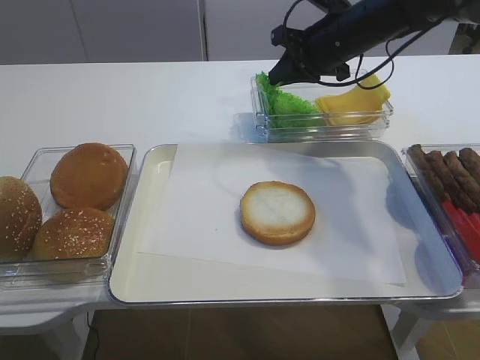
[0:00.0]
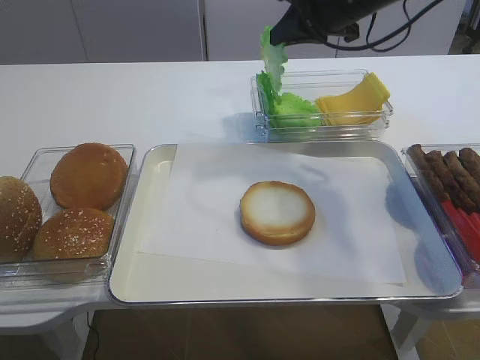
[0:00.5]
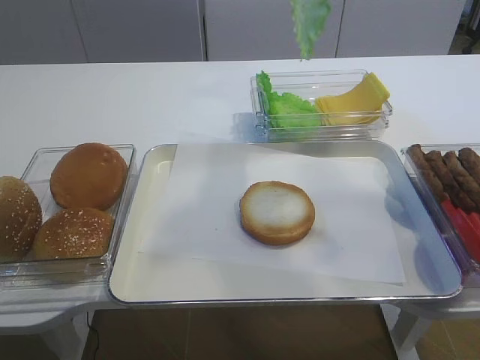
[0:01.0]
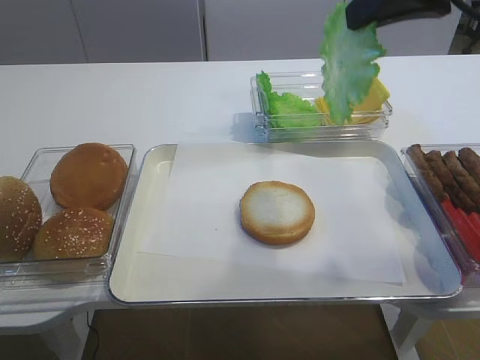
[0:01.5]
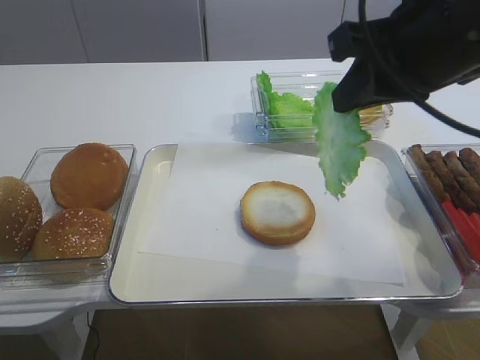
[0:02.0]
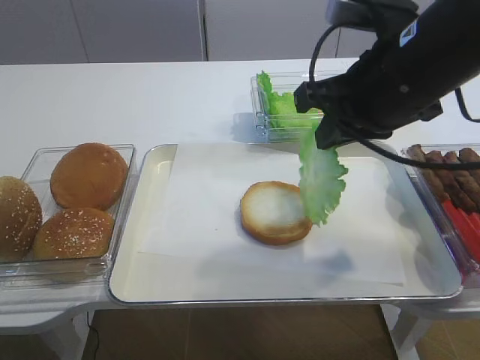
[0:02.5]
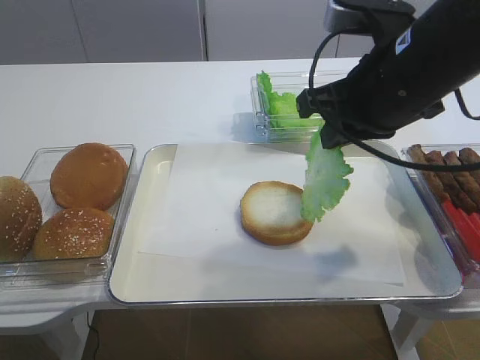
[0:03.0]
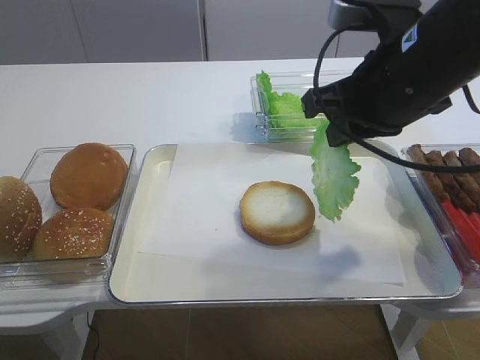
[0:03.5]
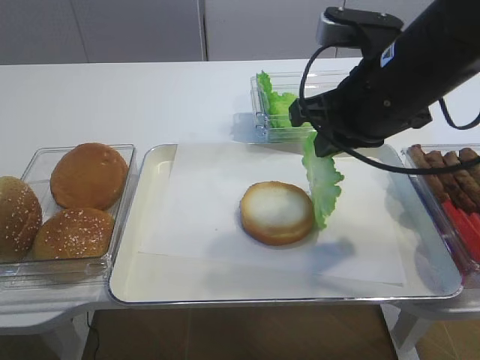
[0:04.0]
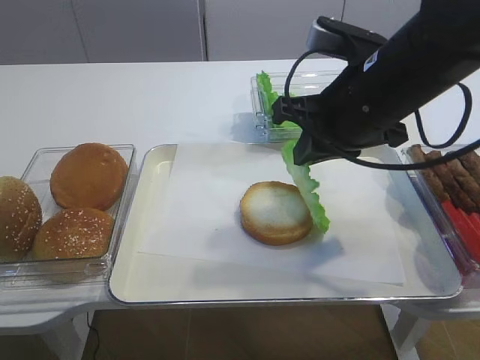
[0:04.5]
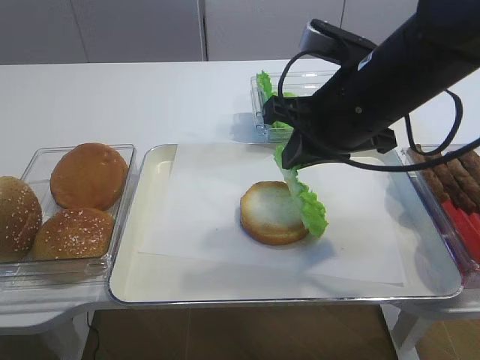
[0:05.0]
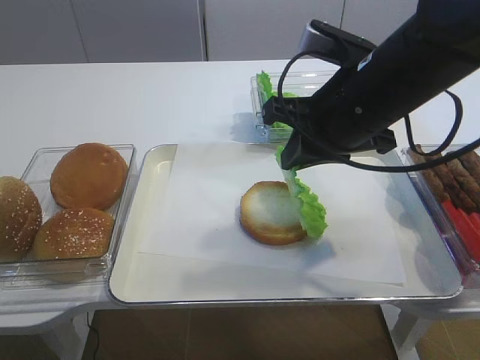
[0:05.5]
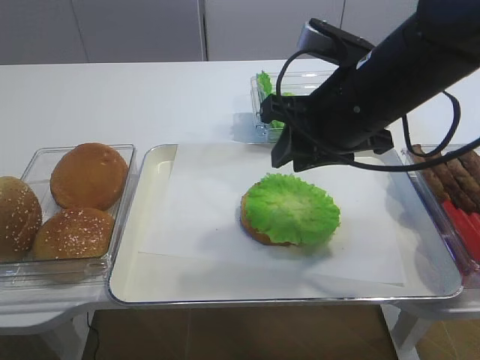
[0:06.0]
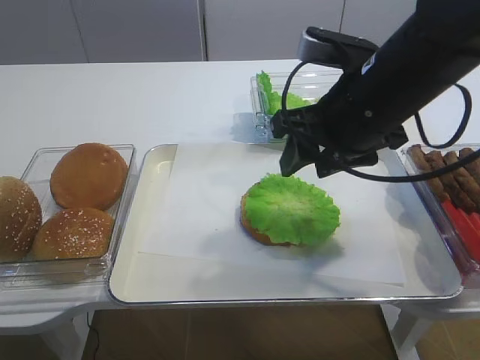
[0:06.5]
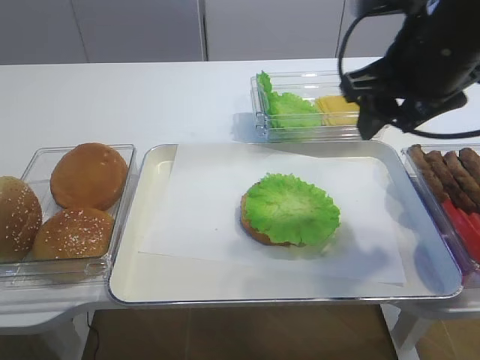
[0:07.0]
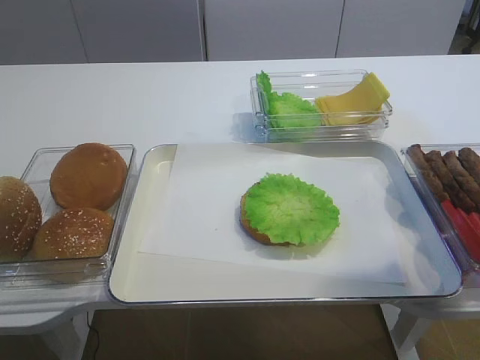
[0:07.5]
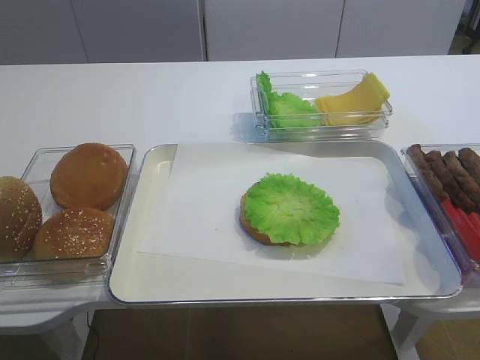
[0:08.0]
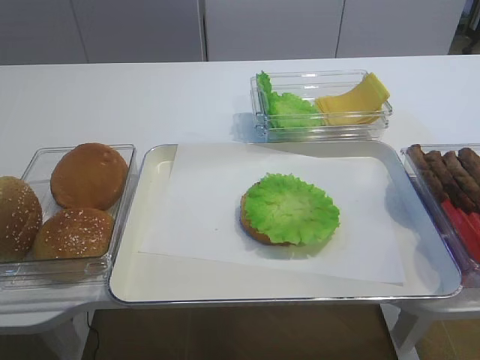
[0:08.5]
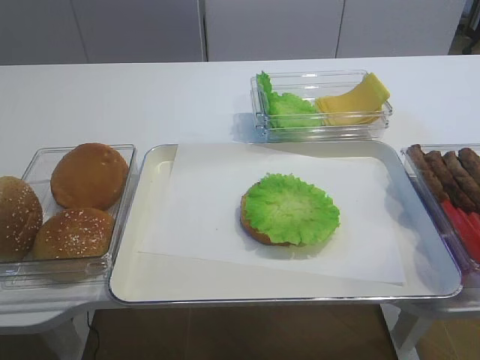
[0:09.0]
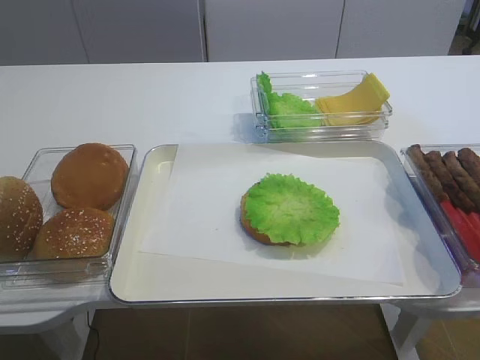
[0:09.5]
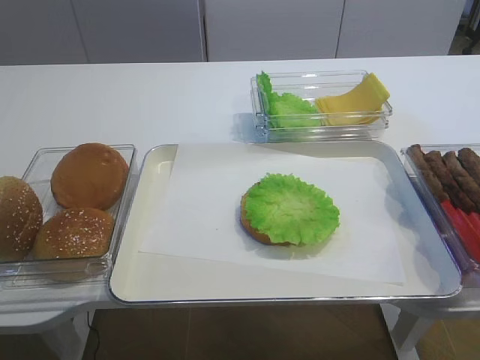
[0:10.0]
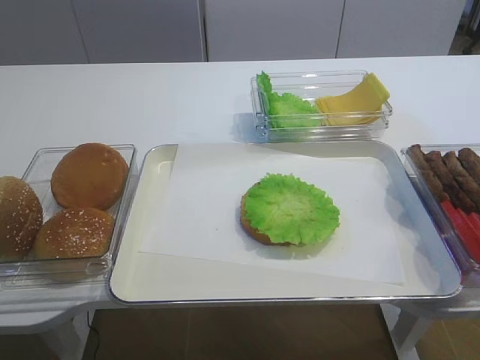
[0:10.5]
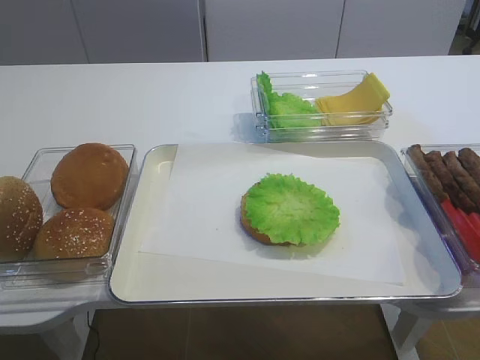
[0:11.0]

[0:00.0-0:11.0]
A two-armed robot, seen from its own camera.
Step, 0:01.5 to 0:06.0: Place the lettuce leaf on the bread slice with the right gripper.
0:00.0 to 0:02.0: The right gripper shifts roughly 25 cm backward and upward.
0:02.0 to 0:03.5: The right gripper ends up roughly 5 cm from where it was.
0:03.5 to 0:05.5: There are only small adjustments of the grippers.
0:05.5 to 0:07.5: The right gripper travels to the right and upward by roughly 15 cm, and opens.
0:07.5 to 0:09.0: The right gripper heads backward, covering roughly 25 cm.

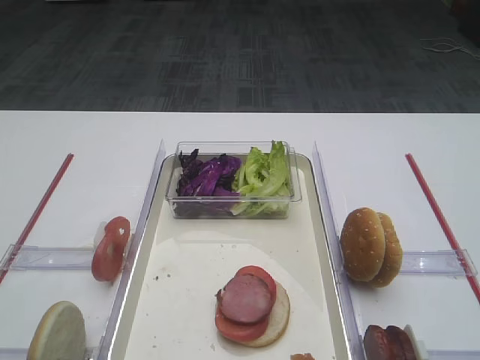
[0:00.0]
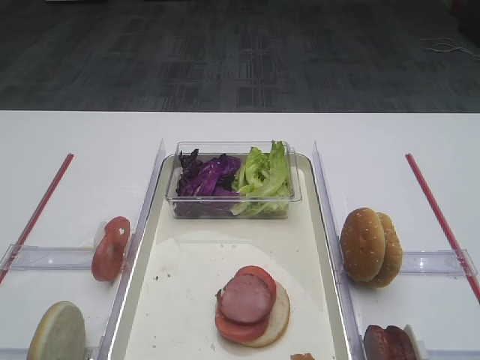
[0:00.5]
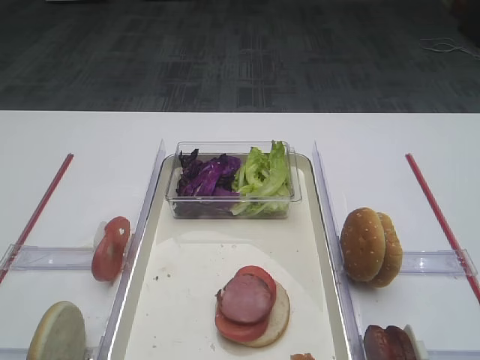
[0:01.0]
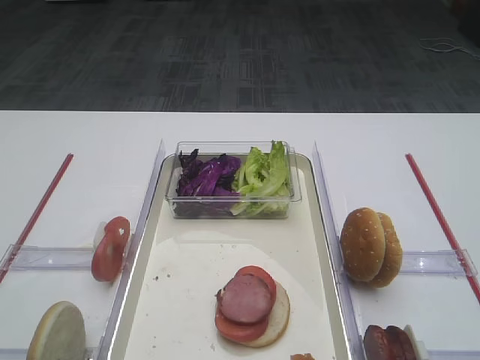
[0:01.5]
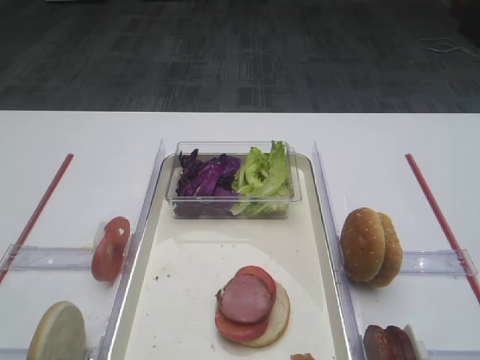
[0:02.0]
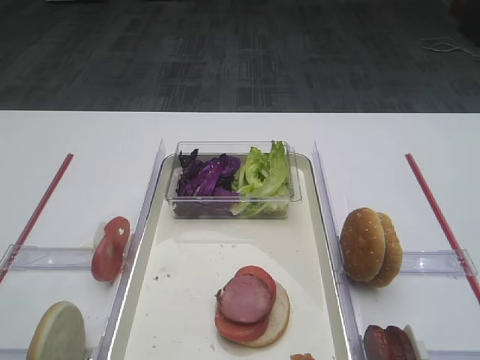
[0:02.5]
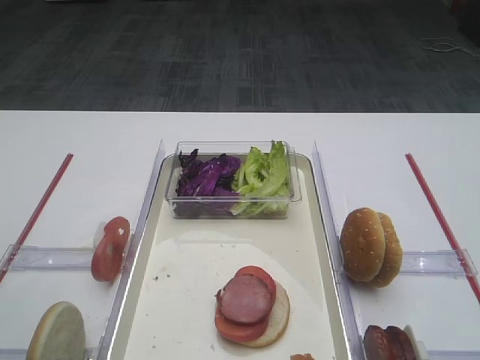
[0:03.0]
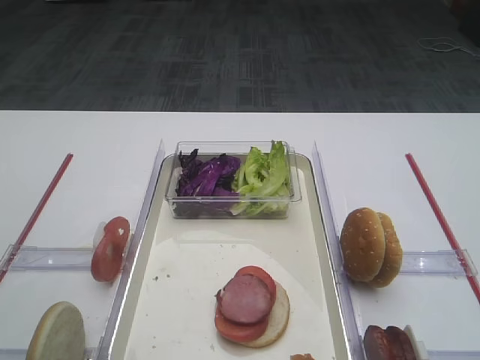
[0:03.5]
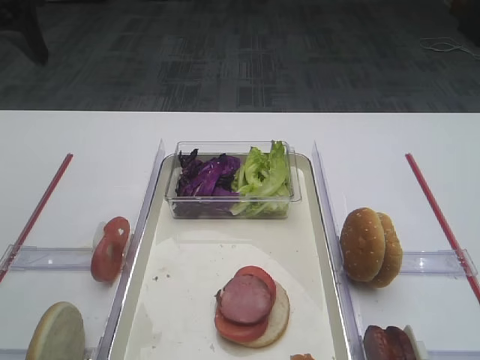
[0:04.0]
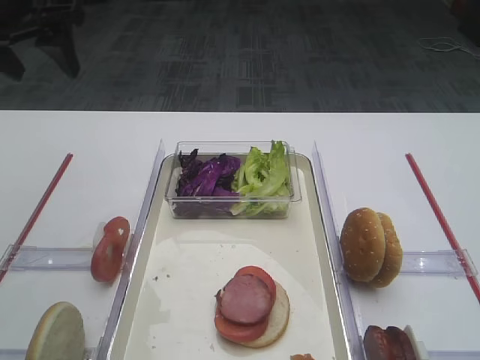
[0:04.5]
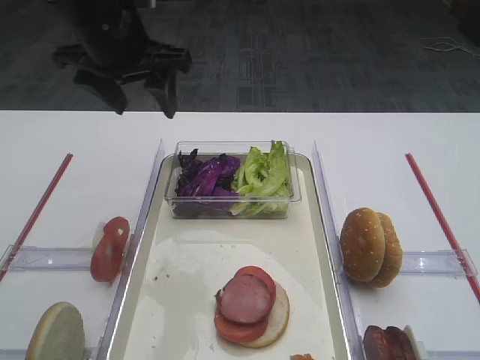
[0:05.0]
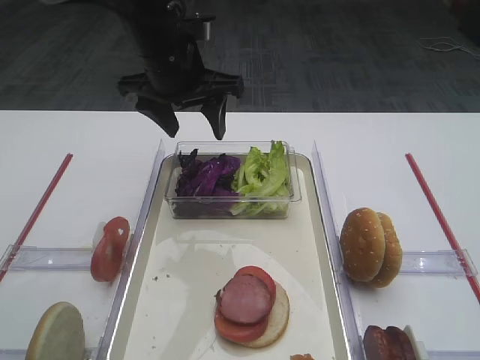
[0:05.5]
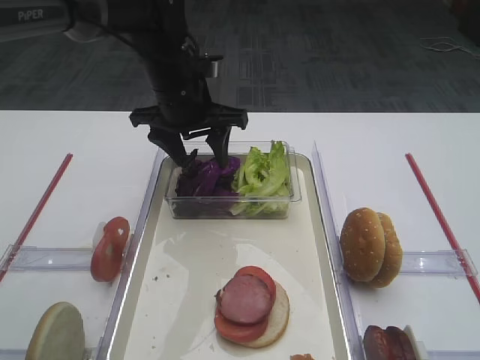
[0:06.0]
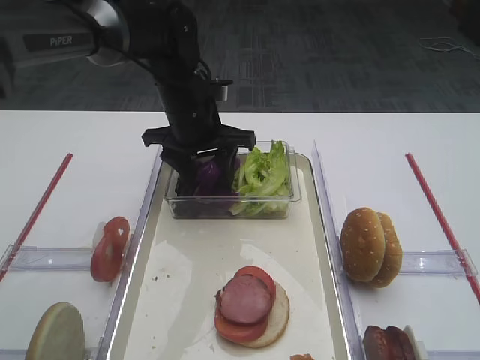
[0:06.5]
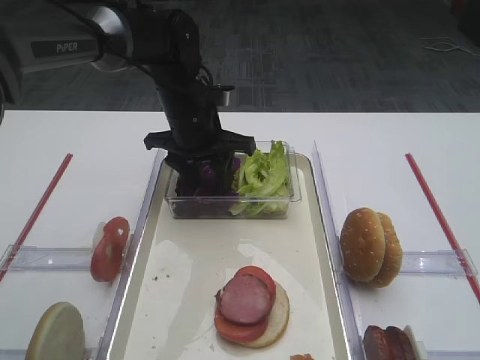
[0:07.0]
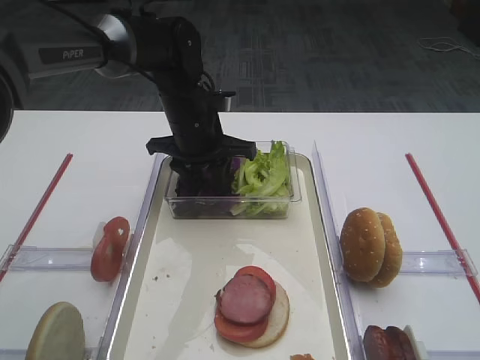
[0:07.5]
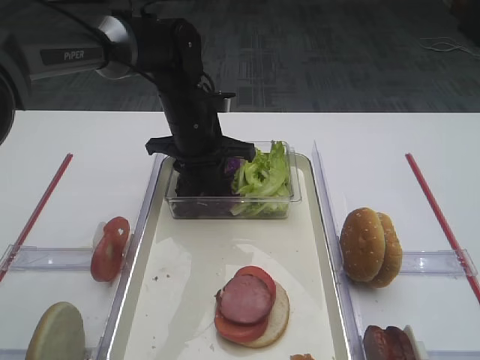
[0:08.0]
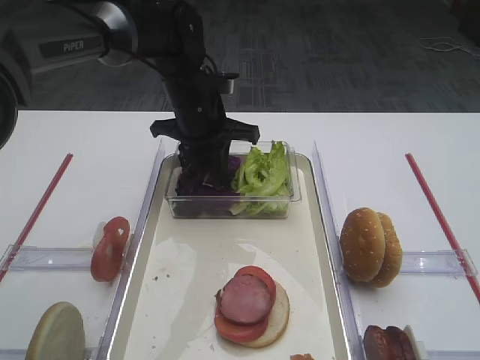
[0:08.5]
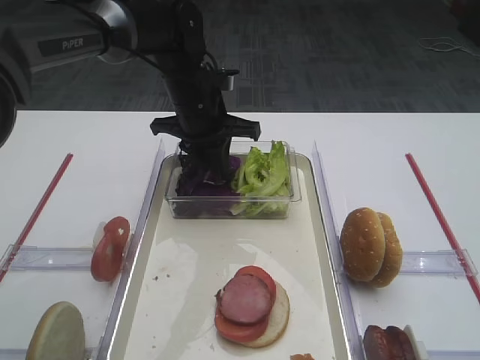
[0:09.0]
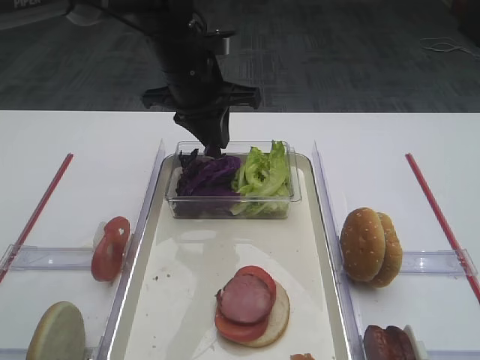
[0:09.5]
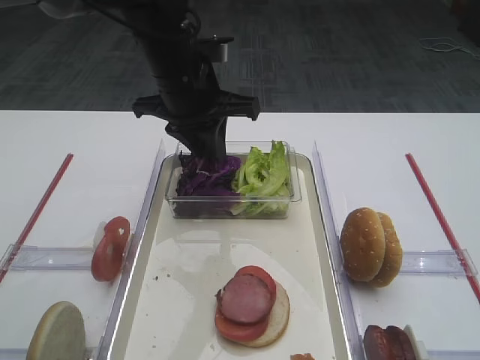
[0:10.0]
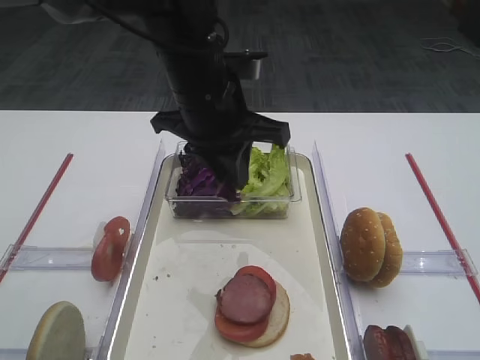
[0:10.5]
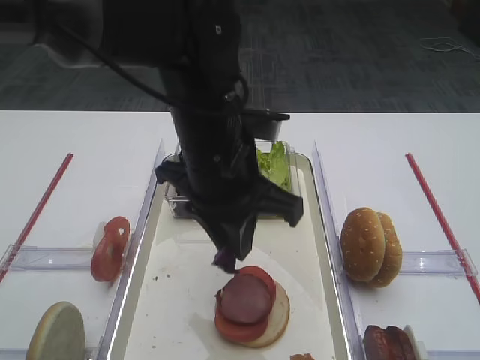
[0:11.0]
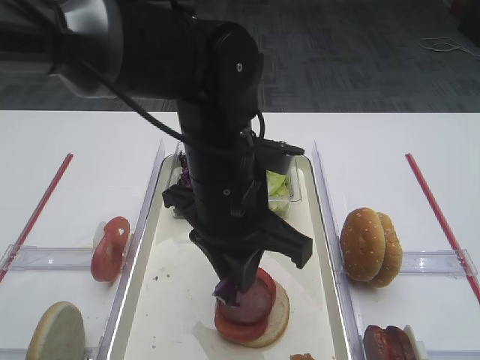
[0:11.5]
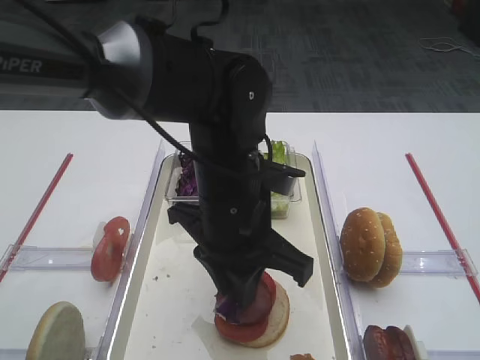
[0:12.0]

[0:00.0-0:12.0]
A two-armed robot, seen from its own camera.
Step, 0:00.0 to 0:09.0: Pick up the purple cabbage with the left gripper.
0:02.0 to 0:04.0: The left gripper shifts approximately 30 cm forward, and opens its fingers.
0:04.0 to 0:06.0: The left gripper shifts some 25 cm to the right, downward and forward.
0:06.0 to 0:08.0: The left gripper moves about 5 cm, and closes its fingers.
0:08.0 to 0:10.0: The left gripper shifts approximately 10 cm upward.
0:10.0 to 0:12.0: The left gripper heads backward, to the right and downward, covering some 15 cm.

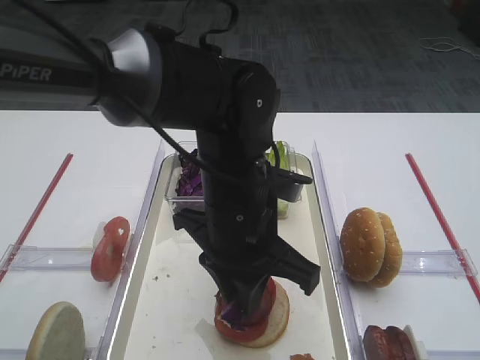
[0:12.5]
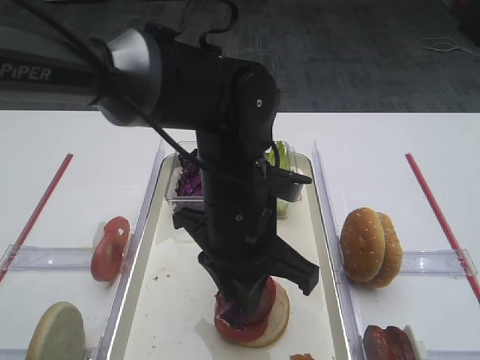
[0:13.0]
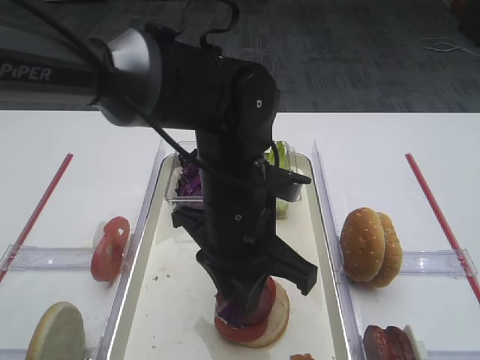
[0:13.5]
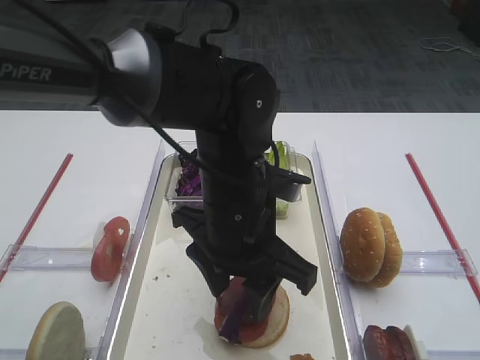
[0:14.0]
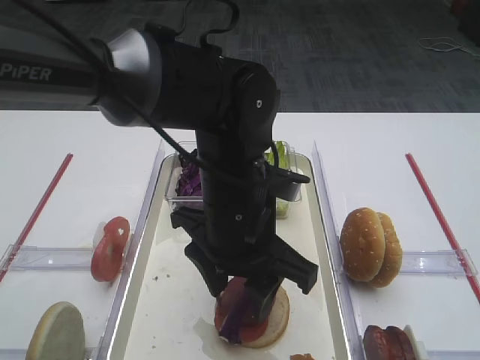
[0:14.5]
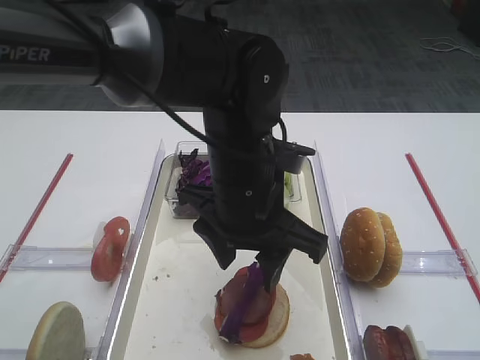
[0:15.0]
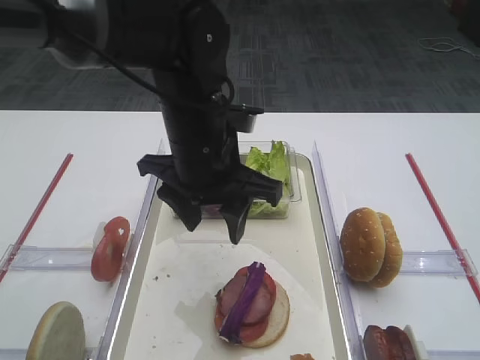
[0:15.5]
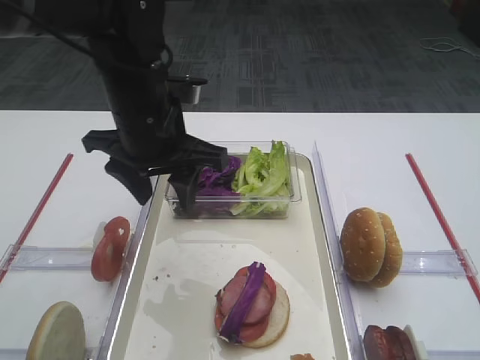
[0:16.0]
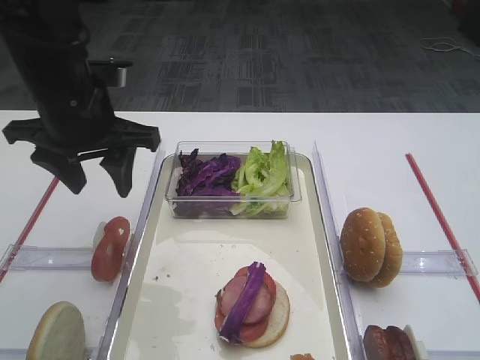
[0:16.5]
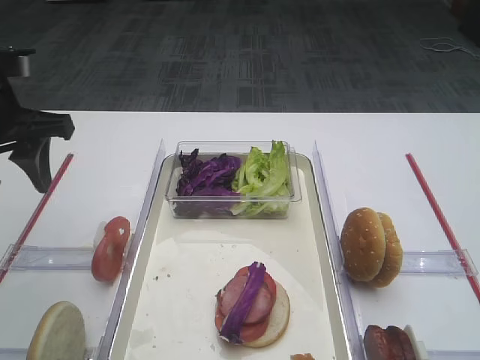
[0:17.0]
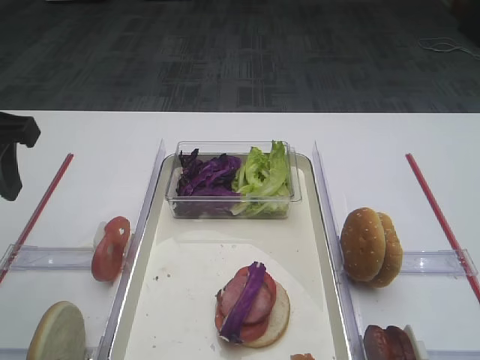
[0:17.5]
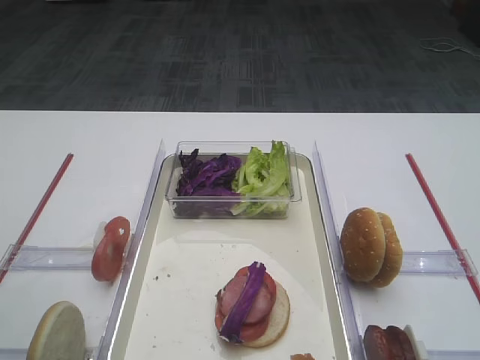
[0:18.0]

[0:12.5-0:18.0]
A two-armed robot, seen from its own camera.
0:12.5 to 0:14.5: The left gripper opens.
0:14.5 to 0:16.0: The left gripper goes about 10 cm to the left and forward.
0:16.0 to 0:18.0: The left gripper goes about 25 cm to the left and backward.
